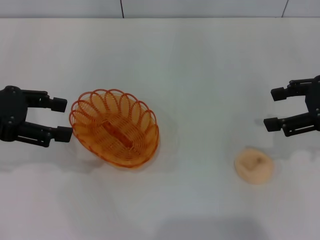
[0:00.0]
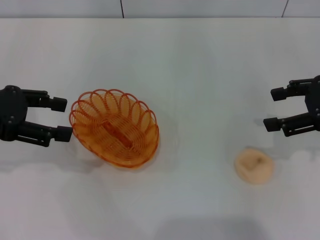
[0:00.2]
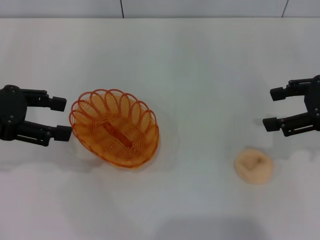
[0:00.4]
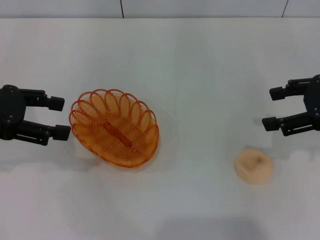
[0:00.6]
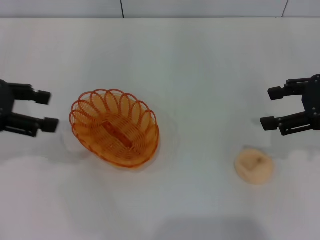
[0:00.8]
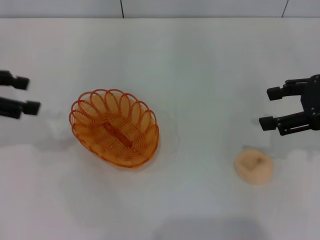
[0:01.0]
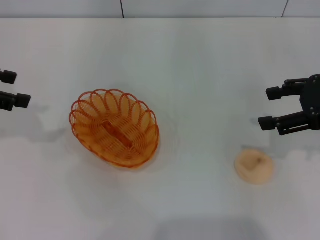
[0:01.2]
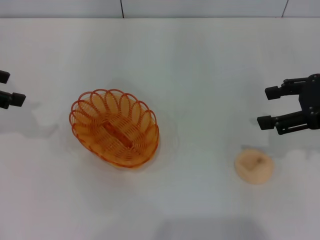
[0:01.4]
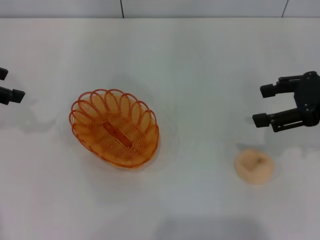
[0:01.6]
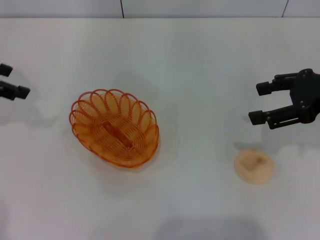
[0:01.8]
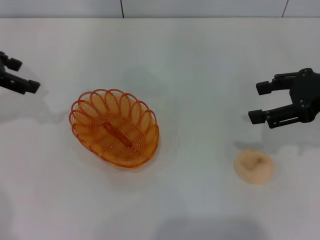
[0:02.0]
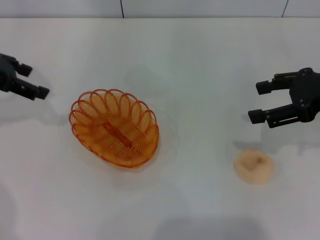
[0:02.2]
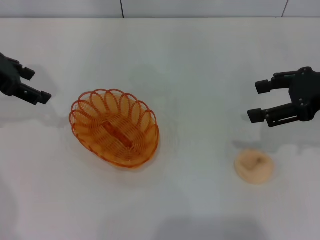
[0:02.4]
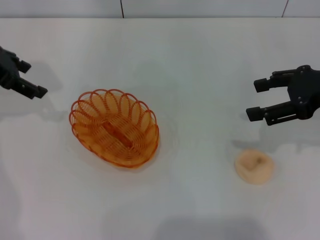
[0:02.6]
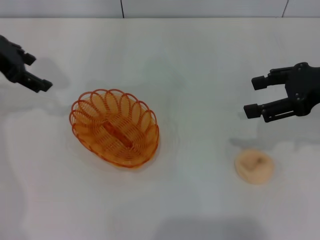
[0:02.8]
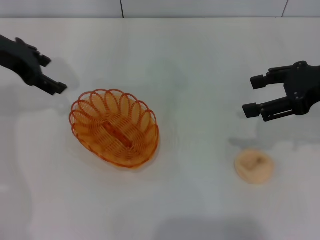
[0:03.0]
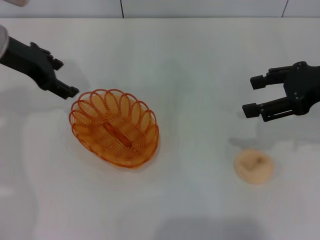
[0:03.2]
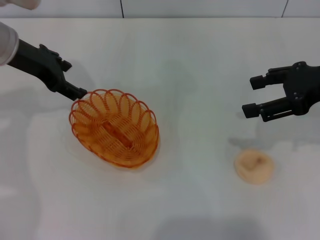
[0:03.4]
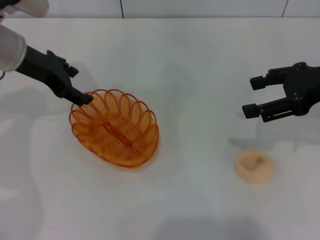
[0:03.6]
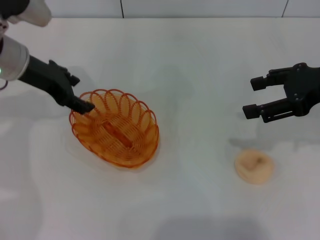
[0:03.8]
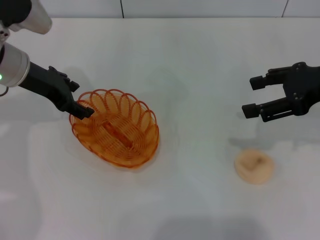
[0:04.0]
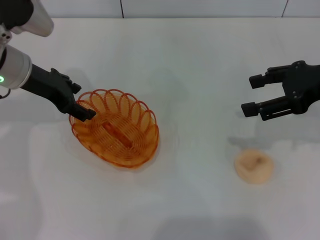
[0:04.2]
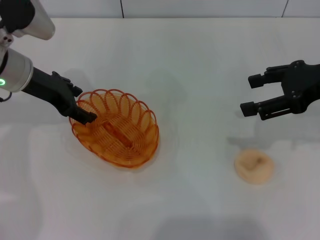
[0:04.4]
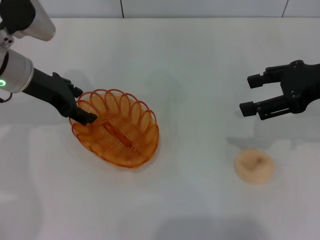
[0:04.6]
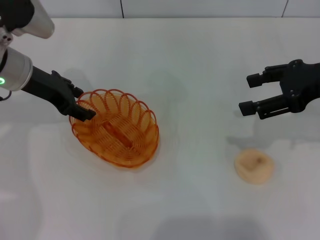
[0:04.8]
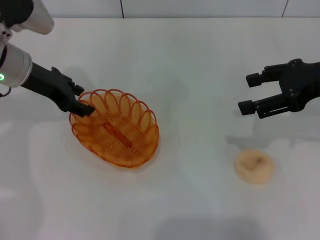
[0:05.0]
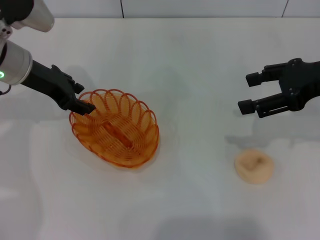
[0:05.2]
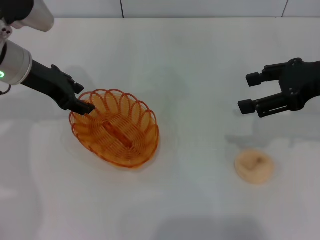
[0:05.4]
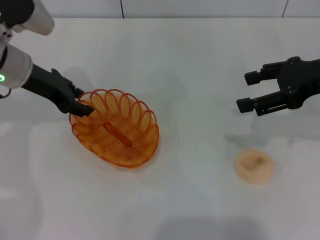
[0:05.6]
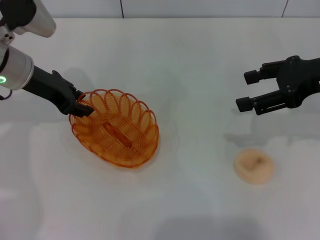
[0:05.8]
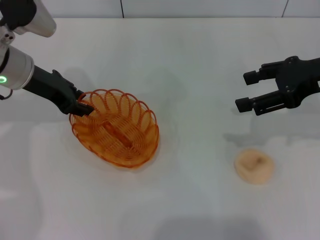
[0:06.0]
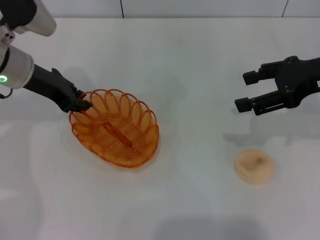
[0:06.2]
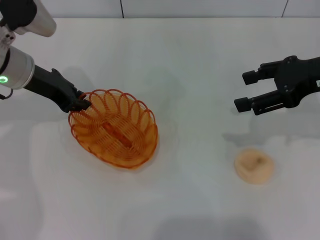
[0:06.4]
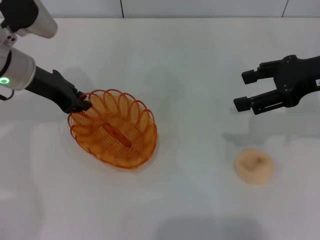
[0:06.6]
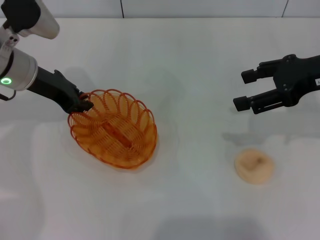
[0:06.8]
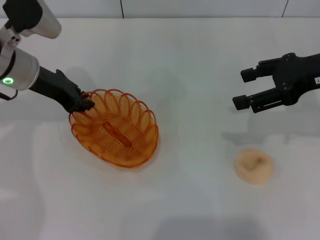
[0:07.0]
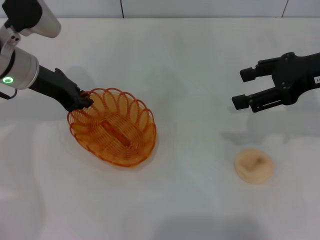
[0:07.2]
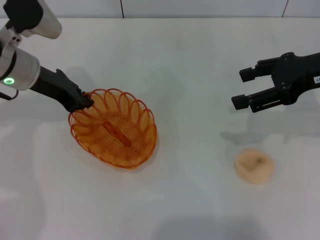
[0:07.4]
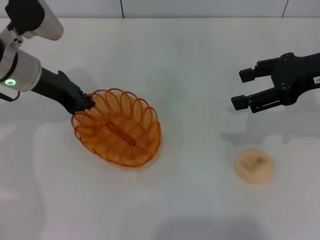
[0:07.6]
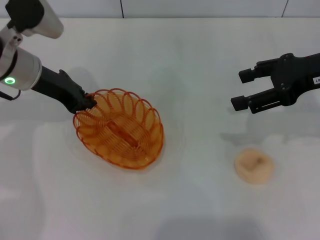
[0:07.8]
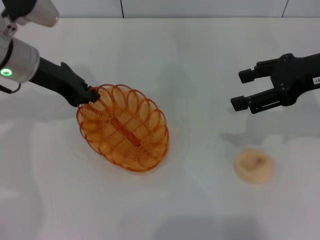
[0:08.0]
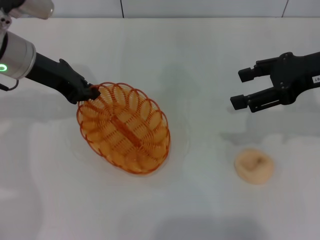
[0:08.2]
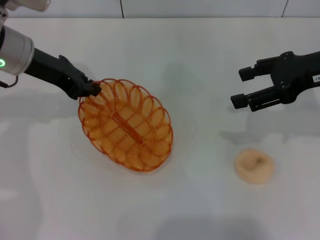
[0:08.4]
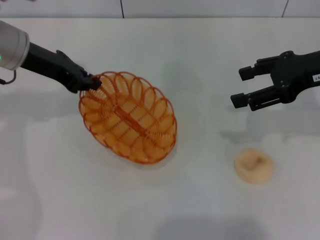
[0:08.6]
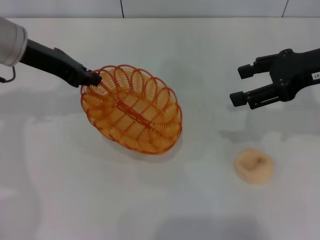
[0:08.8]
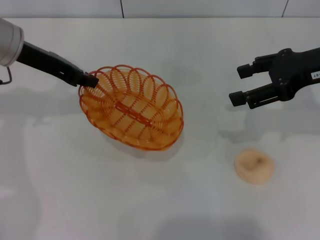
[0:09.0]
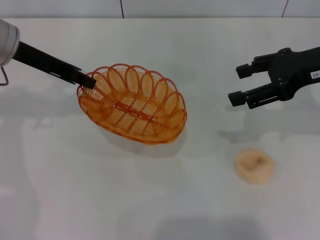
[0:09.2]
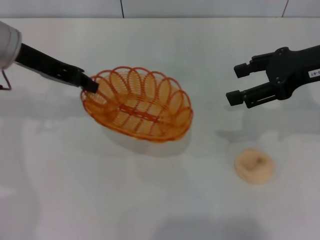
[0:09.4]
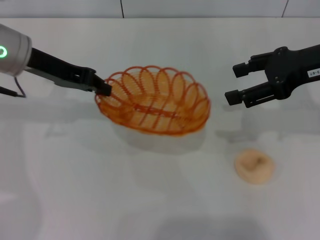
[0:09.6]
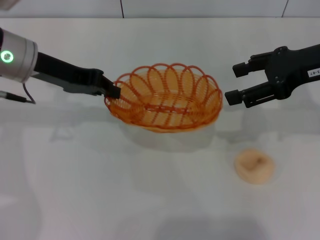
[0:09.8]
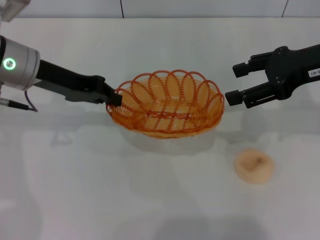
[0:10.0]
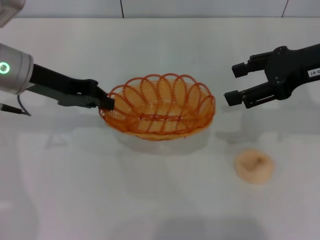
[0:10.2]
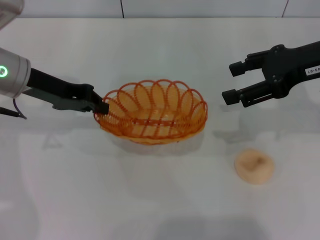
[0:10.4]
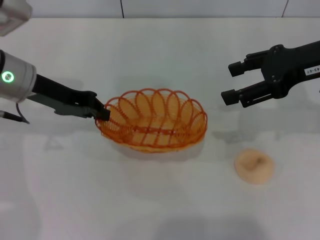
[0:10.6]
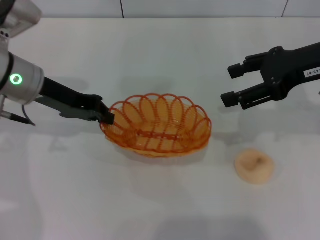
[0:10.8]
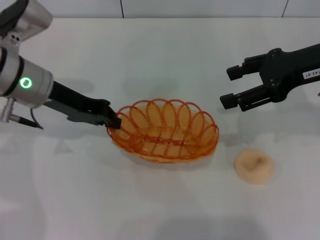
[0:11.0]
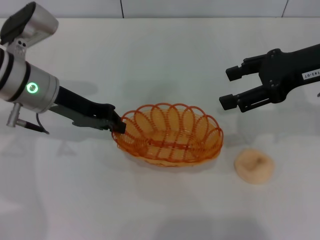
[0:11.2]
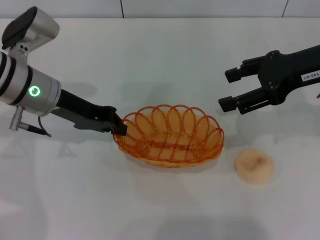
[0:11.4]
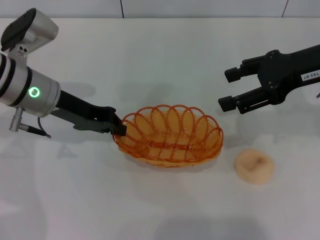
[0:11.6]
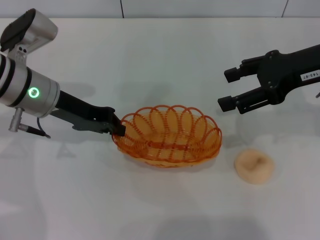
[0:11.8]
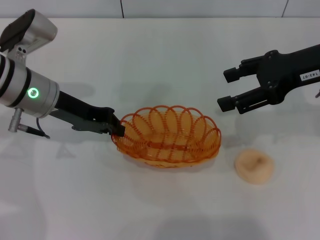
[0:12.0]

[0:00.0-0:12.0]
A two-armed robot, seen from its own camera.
Step, 0:00.0 to 0:09.2: Pick up the basket with the left gripper.
0:00.0 to 0:01.6: The left gripper moves forward, approximately 5 cm.
0:01.6 to 0:03.0: The left gripper travels to the right and forward by approximately 10 cm.
0:03.0 to 0:04.4: The left gripper goes about 5 cm downward.
0:04.4 to 0:06.0: The left gripper closes.
0:06.0 to 0:07.6: The left gripper closes.
0:07.6 to 0:09.0: The left gripper heads upward, covering about 5 cm.

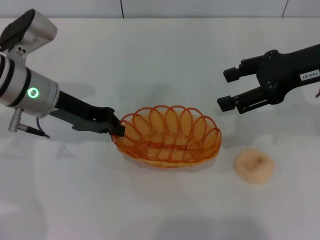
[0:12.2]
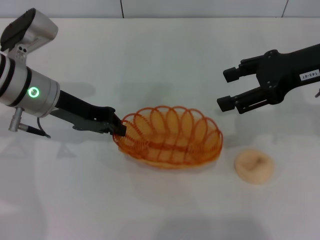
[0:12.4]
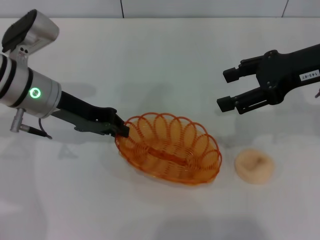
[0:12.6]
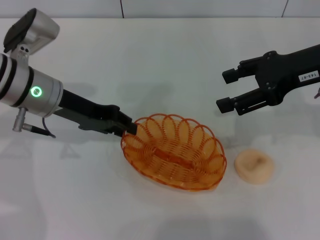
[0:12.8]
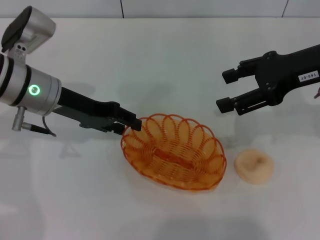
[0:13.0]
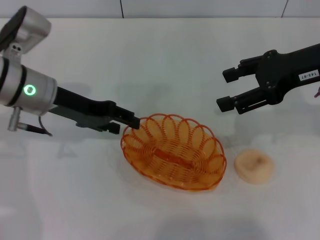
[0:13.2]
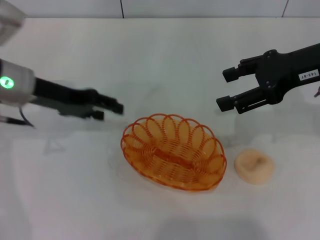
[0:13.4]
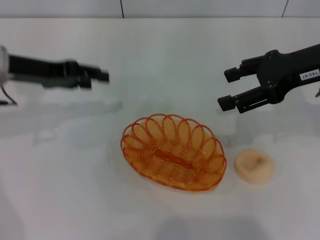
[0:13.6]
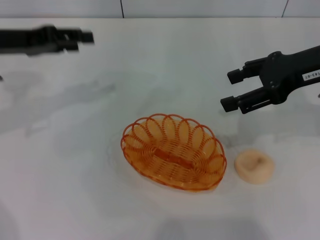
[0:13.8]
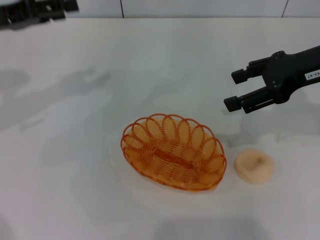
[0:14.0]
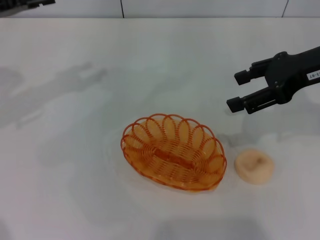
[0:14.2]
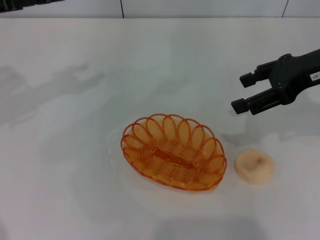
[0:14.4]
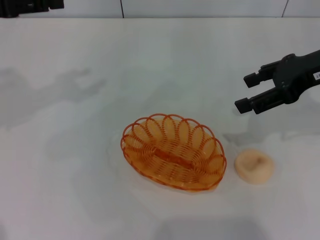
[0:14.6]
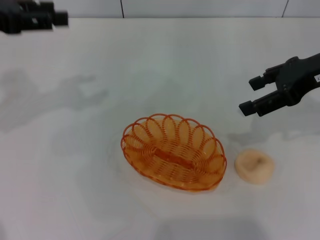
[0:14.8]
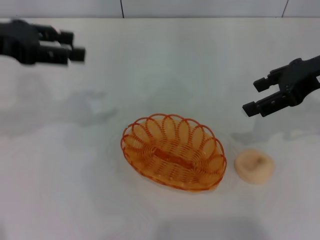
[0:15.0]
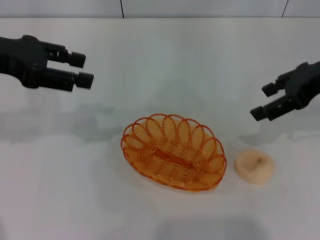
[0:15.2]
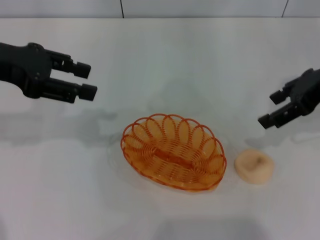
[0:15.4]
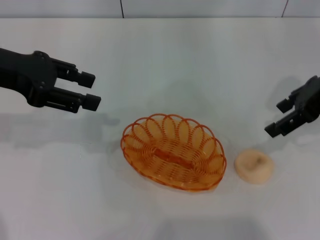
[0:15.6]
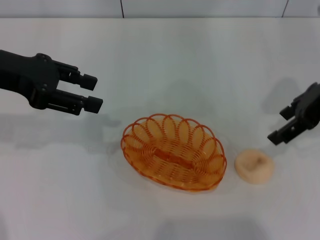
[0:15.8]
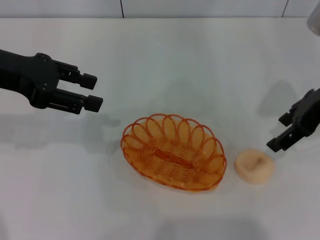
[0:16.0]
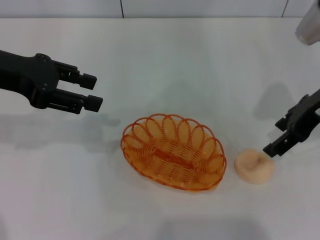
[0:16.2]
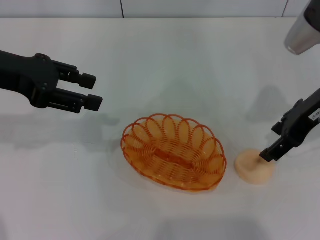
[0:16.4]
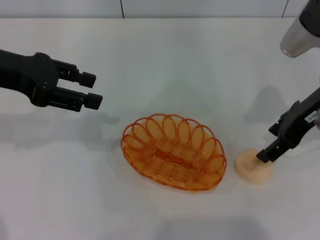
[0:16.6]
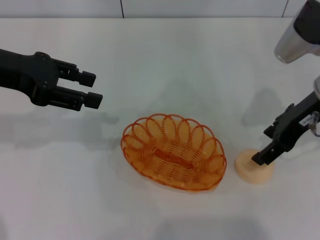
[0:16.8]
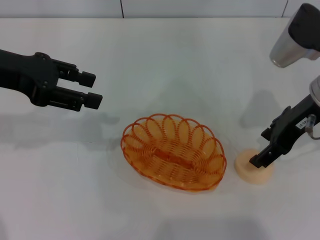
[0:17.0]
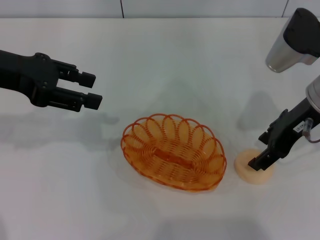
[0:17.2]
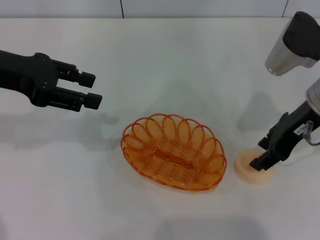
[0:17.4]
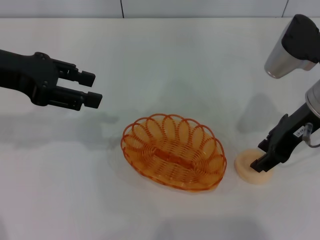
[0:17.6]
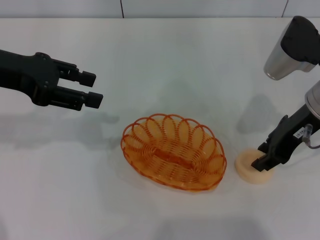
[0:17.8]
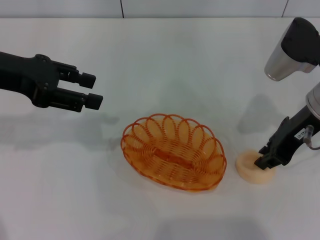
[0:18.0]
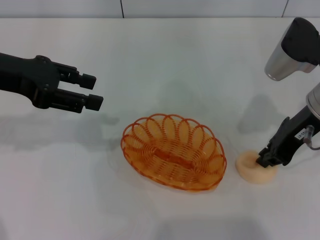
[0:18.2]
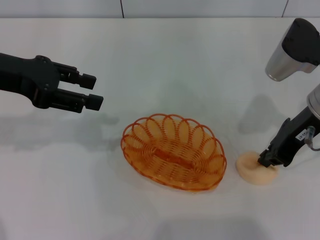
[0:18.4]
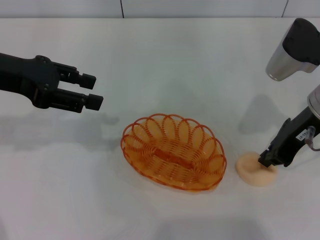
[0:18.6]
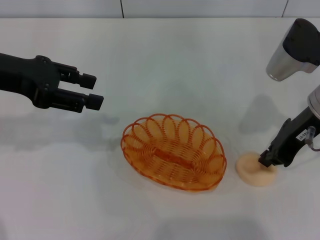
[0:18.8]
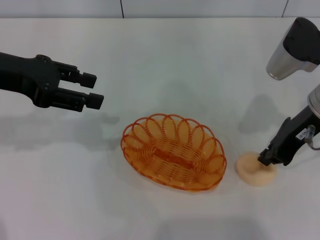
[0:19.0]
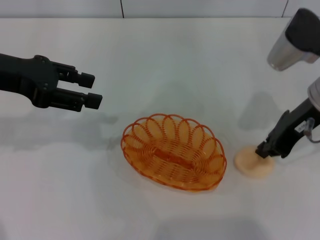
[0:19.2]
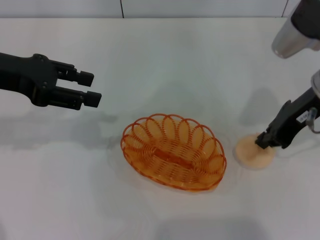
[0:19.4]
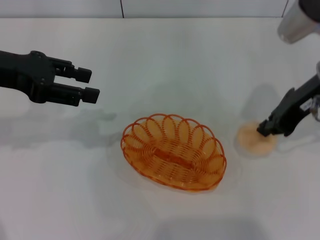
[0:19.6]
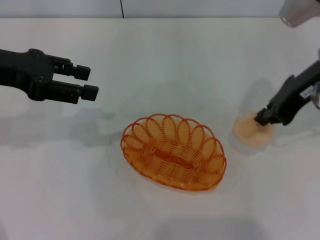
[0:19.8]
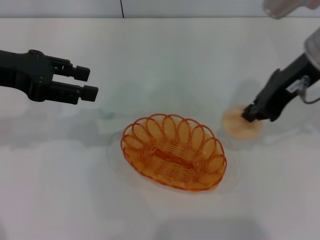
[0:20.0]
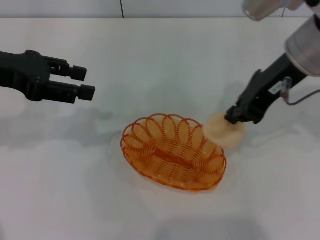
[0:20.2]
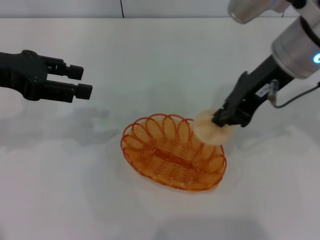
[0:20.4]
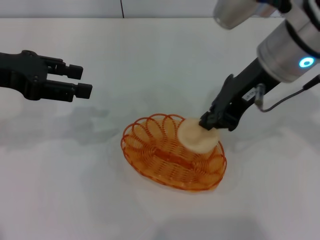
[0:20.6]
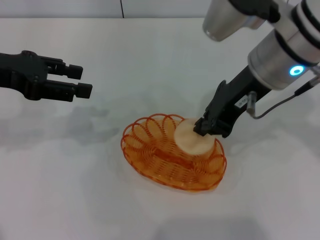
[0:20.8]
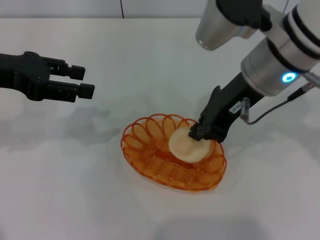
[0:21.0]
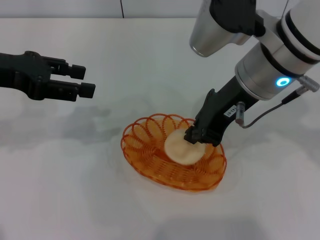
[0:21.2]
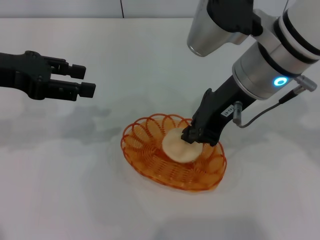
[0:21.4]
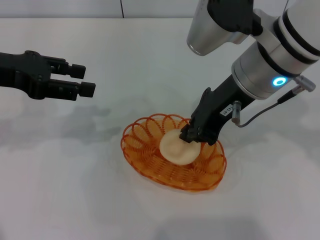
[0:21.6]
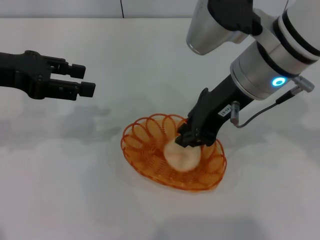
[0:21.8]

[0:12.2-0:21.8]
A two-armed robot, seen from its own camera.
Step, 0:13.6 to 0:19.0: Pick up the egg yolk pastry with the right gripper.
0:12.2 to 0:13.8: The left gripper travels to the left and upward by roughly 10 cm, and opens.
0:13.8 to 0:15.4: The left gripper moves some 5 cm.
0:15.4 to 0:17.0: The right gripper changes place by roughly 5 cm.
0:17.0 to 0:18.6: The right gripper closes up.
0:18.6 to 0:20.2: The right gripper shifts approximately 5 cm upward.
0:20.2 to 0:21.8: The right gripper is displaced to the left by approximately 5 cm.

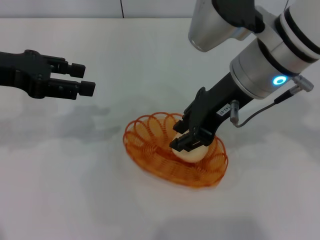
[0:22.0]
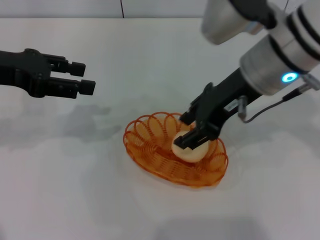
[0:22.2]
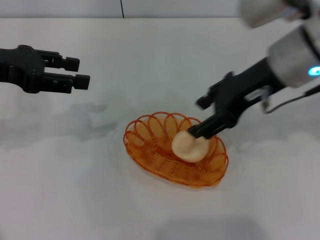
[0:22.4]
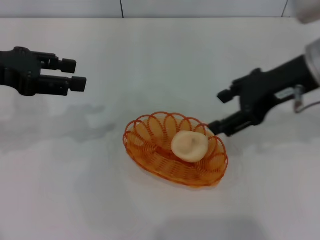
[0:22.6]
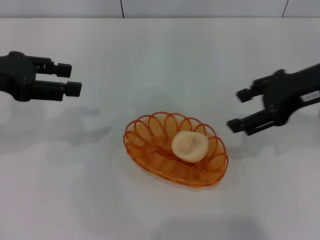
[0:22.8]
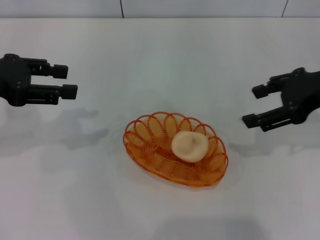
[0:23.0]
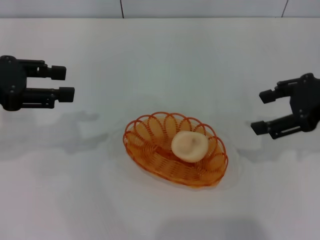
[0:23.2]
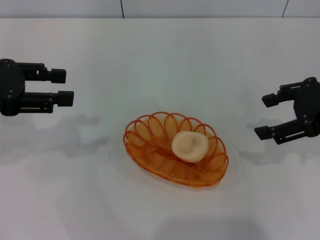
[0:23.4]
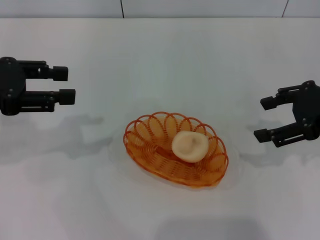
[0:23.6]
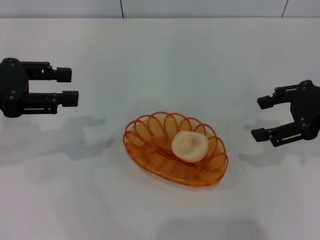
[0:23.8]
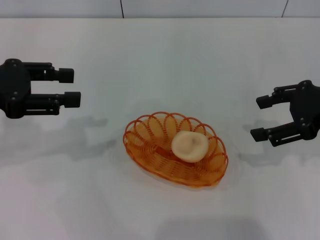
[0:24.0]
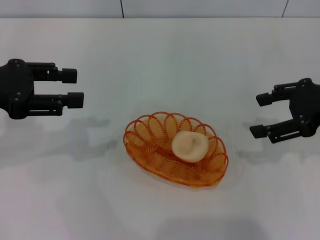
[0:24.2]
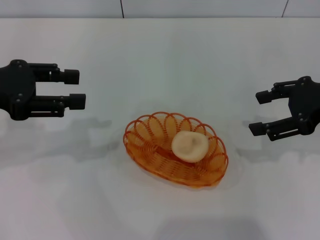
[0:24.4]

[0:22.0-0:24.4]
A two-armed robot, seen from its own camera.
0:22.0 to 0:23.2: The right gripper is displaced to the right by roughly 15 cm, and opens.
0:23.2 to 0:24.4: There are only small adjustments of the grippers.
